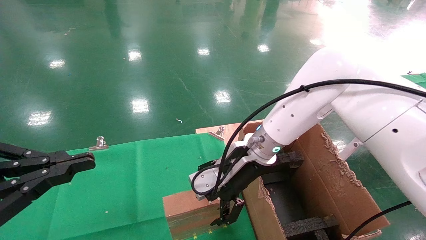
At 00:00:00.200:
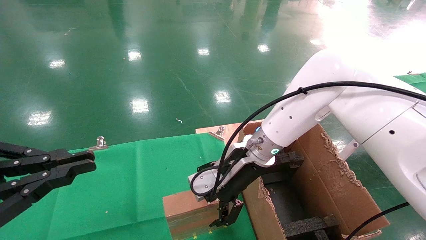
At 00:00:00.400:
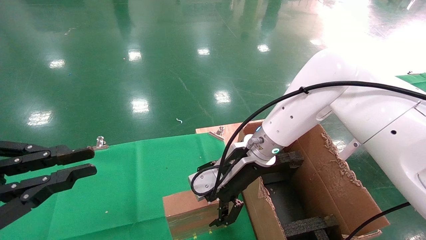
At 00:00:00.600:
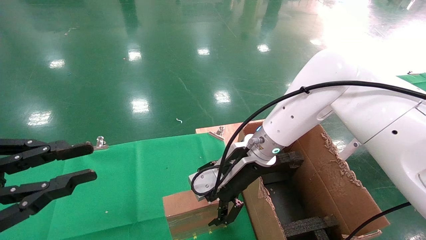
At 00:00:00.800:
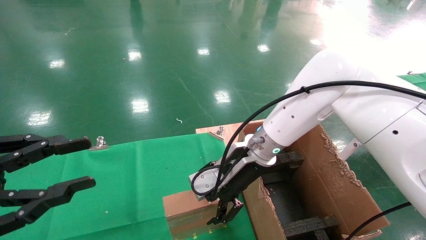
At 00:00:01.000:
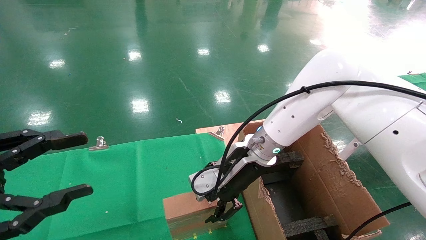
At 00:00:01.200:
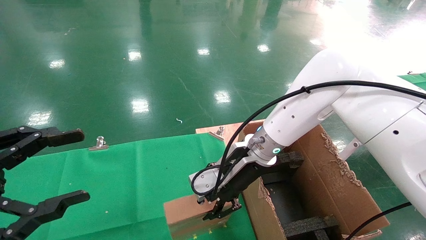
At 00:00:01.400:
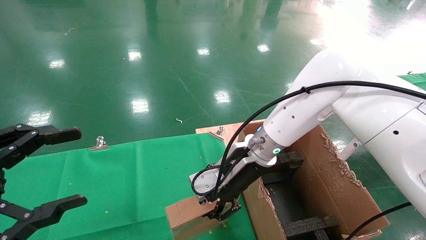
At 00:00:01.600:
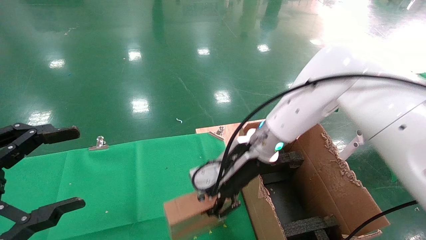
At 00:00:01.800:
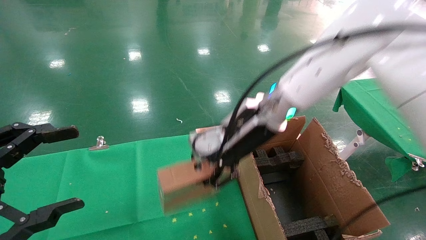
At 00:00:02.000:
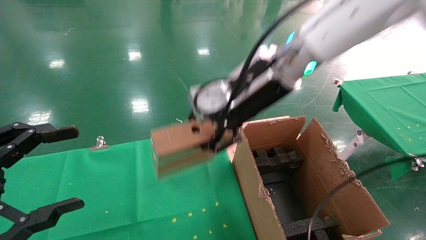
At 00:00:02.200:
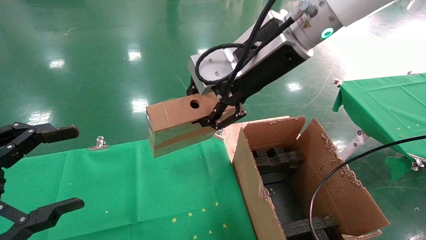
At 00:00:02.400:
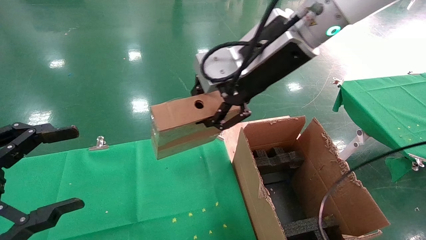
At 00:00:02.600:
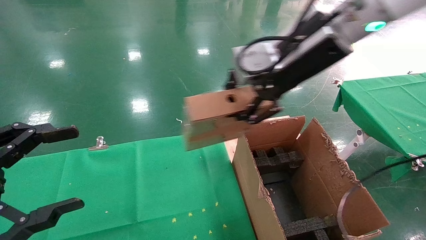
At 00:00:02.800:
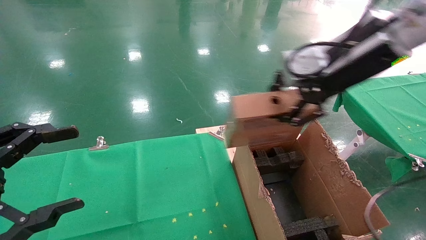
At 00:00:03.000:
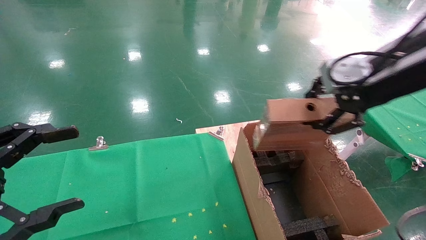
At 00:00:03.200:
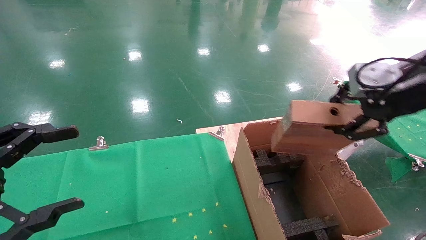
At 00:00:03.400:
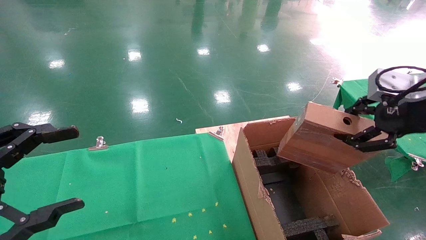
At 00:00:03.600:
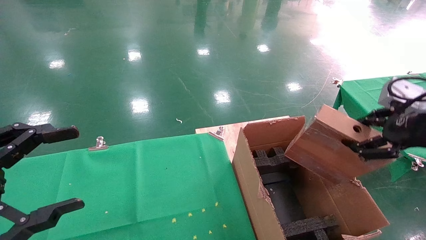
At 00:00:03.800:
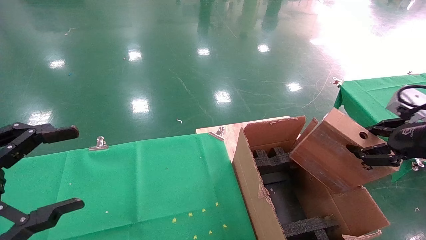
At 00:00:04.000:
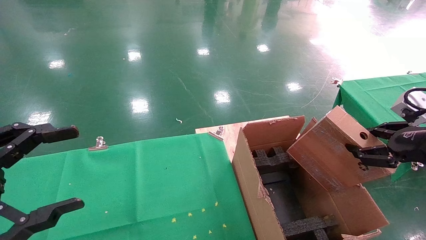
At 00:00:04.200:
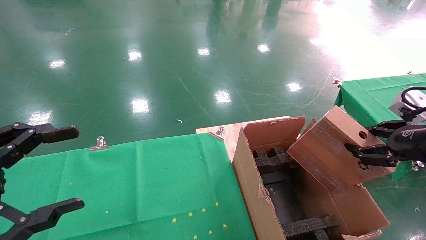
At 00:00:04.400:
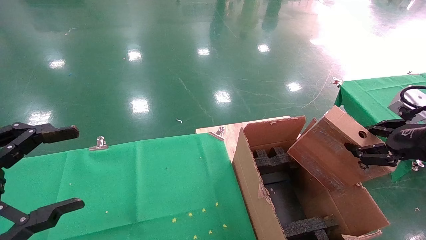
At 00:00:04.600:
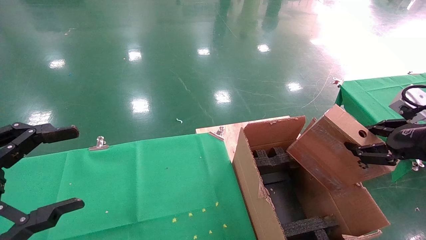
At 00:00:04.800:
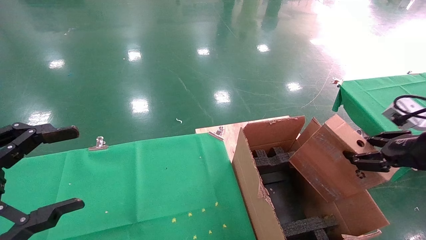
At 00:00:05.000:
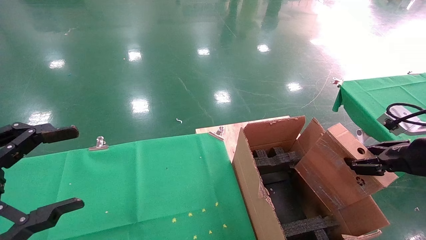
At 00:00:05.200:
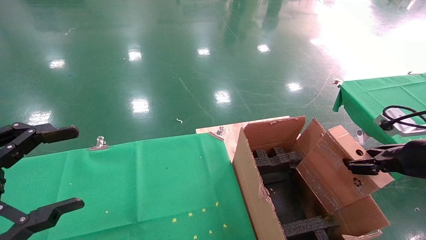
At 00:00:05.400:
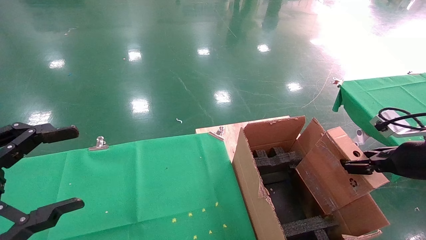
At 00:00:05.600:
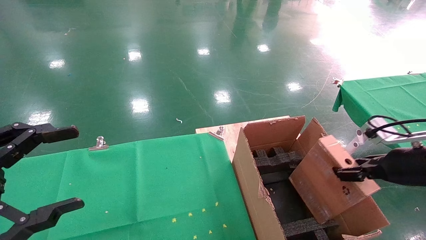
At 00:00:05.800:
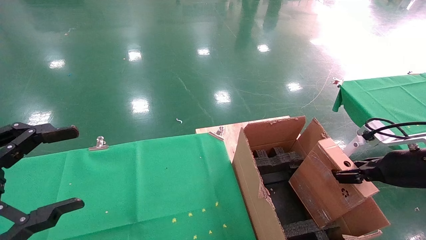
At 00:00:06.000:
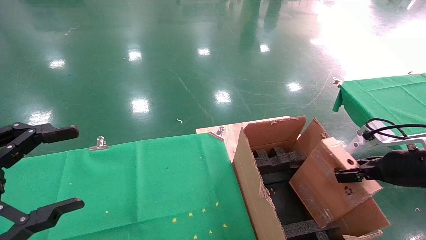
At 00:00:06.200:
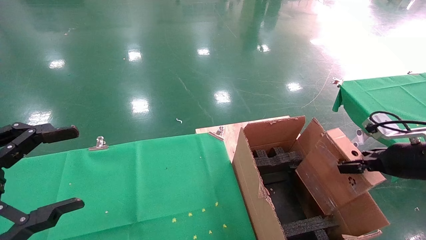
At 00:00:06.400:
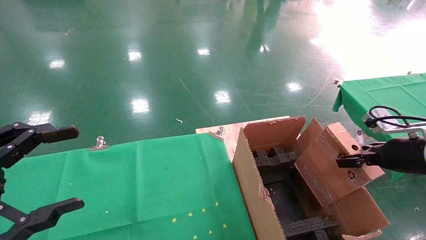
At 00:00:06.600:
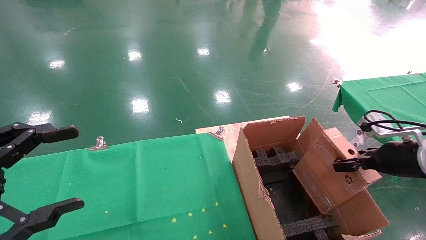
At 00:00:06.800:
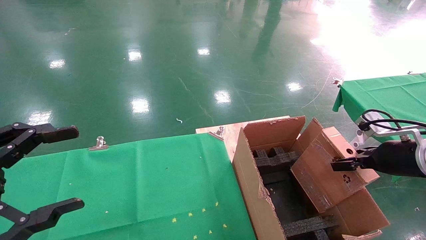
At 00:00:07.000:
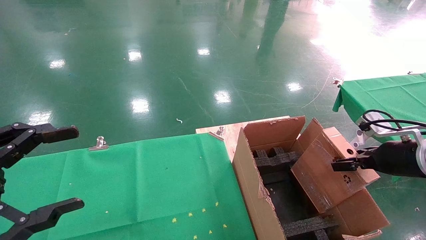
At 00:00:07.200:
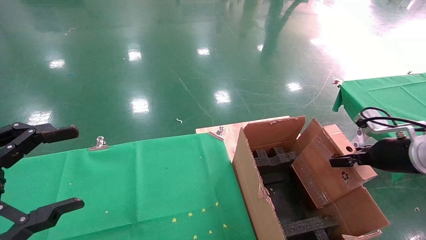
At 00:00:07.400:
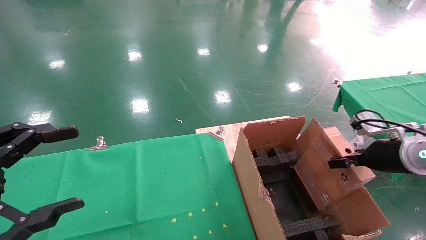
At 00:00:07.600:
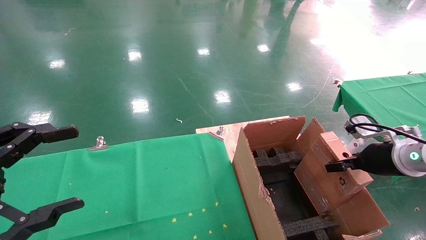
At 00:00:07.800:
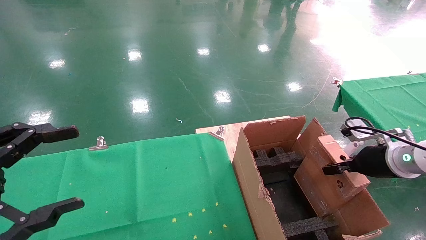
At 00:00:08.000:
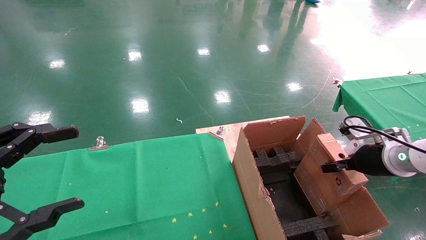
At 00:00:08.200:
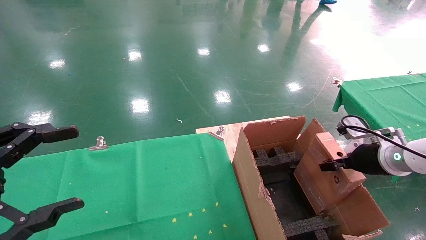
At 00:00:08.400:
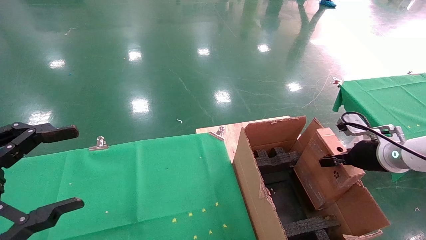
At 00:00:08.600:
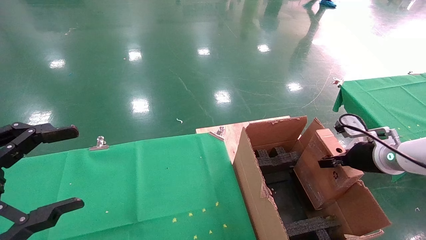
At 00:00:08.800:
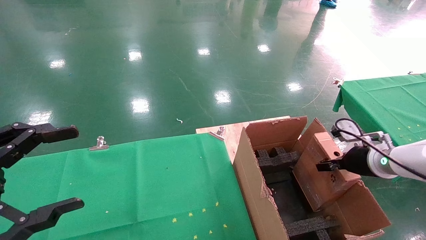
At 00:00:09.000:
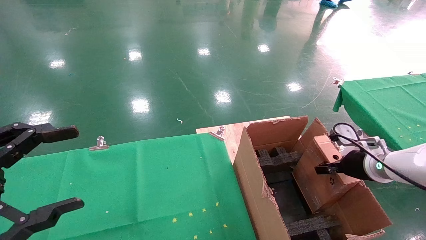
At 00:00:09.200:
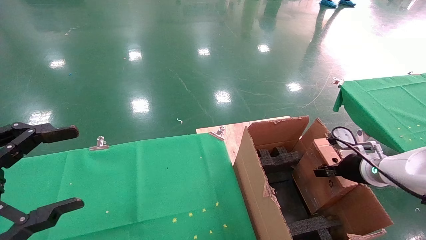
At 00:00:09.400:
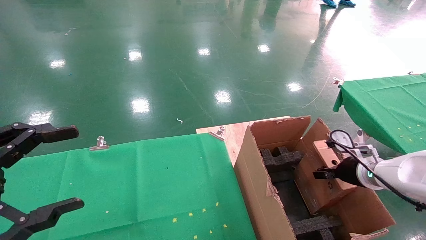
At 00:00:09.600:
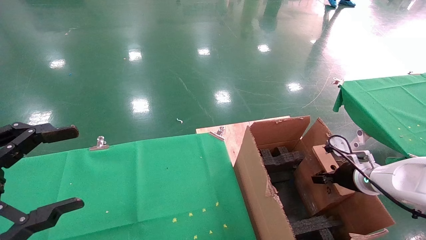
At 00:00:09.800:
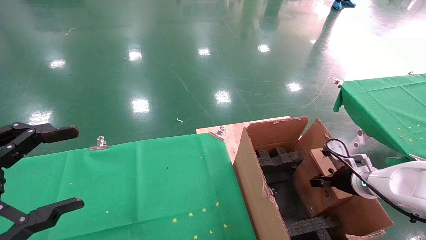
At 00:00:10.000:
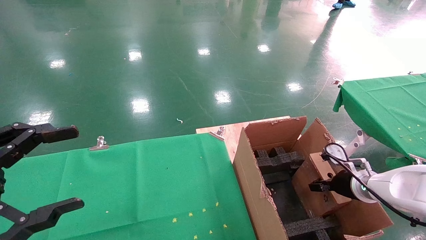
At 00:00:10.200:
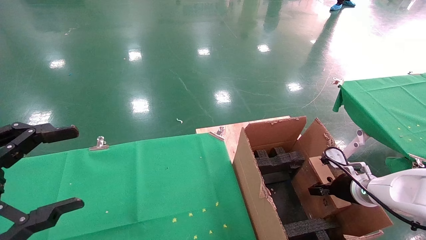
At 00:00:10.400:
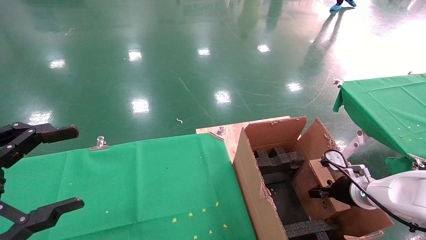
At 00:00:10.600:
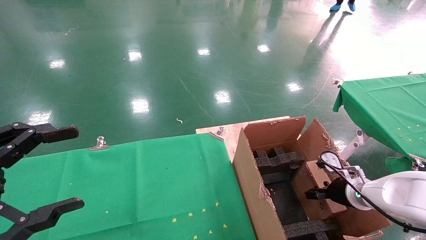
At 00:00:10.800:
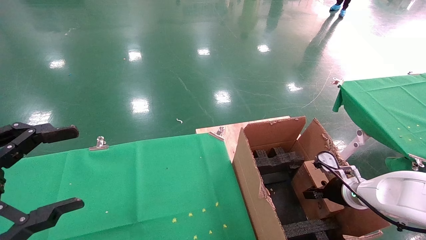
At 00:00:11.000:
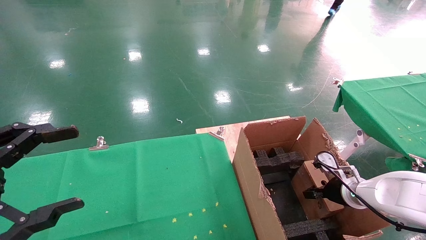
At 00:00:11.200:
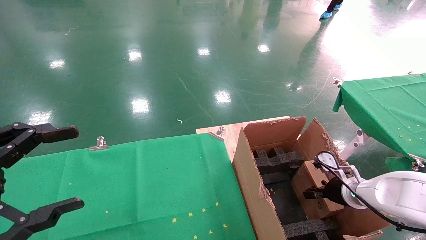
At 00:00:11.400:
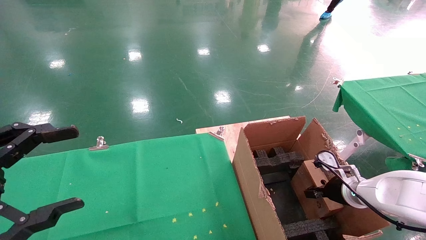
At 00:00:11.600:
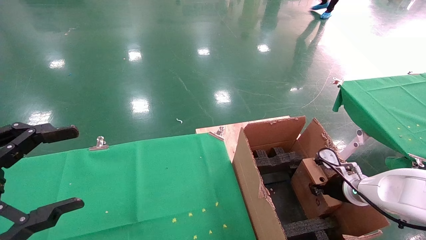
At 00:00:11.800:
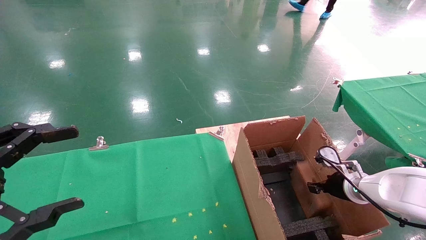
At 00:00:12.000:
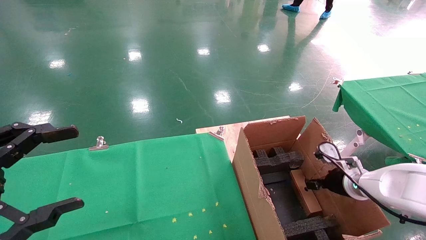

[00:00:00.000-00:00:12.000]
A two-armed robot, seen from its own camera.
Task of the whole recording: using a robotic arm to pick up a cardboard box and palace it the carton.
Step, 00:00:00.000 to 00:00:01.400: Pick up the mouse and the power cord paper box.
Step, 00:00:01.600 to 00:00:12.000: Place the mouse and the power cord paper box into the container.
00:00:00.000 to 00:00:01.600: The right gripper closes up; the left gripper opens.
00:00:01.600 to 00:00:03.000: The right gripper shifts roughly 25 cm to the right, upward and backward.
00:00:03.000 to 00:00:04.400: The right gripper heads downward, to the right and backward, covering about 20 cm.
00:00:04.400 to 00:00:06.000: The right gripper travels downward and forward by about 10 cm.
00:00:06.000 to 00:00:07.600: The right gripper changes place by about 5 cm.
00:00:07.600 to 00:00:09.000: The right gripper changes place by some 5 cm.
00:00:09.000 to 00:00:10.400: The right gripper is displaced downward by some 10 cm.
00:00:10.400 to 00:00:12.000: The right gripper opens up.

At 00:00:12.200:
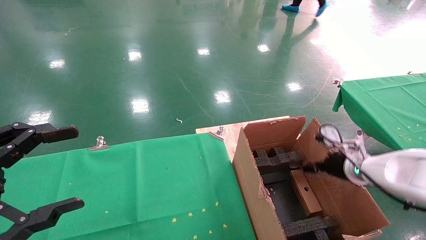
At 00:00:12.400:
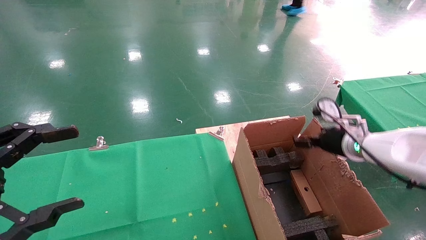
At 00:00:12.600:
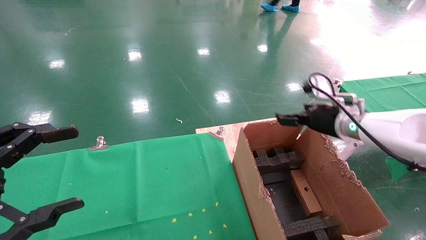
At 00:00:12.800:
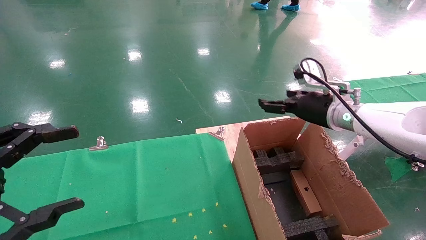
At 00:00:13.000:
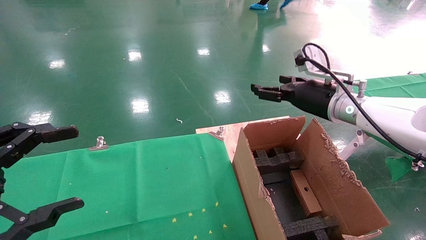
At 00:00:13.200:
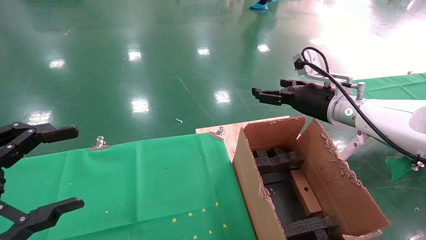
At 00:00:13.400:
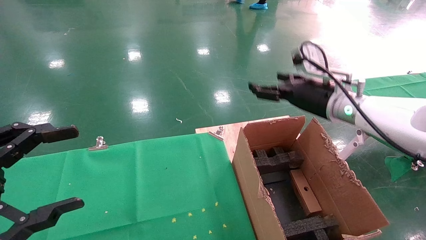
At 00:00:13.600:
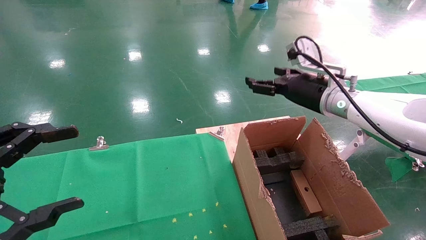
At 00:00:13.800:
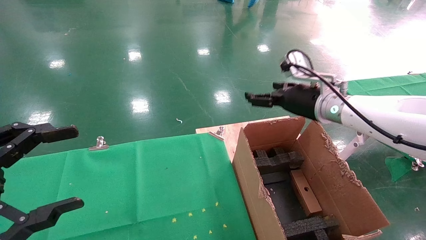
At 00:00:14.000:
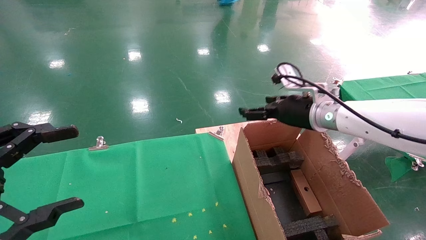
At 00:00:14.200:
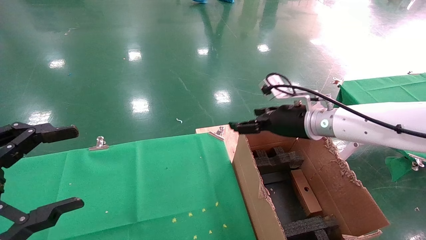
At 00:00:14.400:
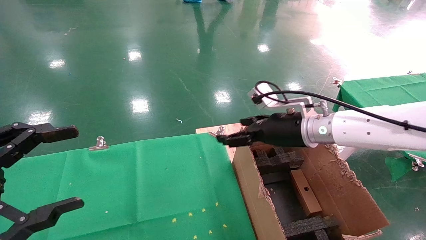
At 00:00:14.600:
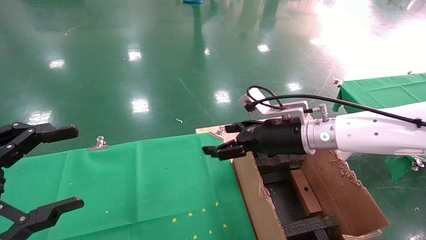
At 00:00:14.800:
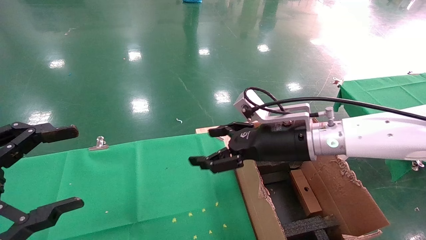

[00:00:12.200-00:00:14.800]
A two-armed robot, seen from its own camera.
Task of the whole recording: using a robotic arm to pick up a cardboard box and palace it the carton.
00:00:12.200 to 00:00:13.400: The right gripper travels upward and to the left by roughly 15 cm.
00:00:13.400 to 00:00:14.800: The right gripper heads to the left and backward, covering about 10 cm.
